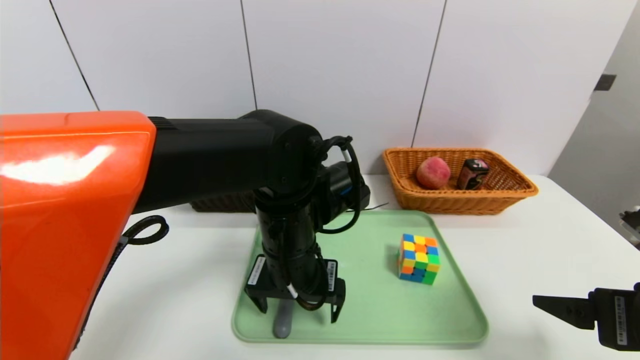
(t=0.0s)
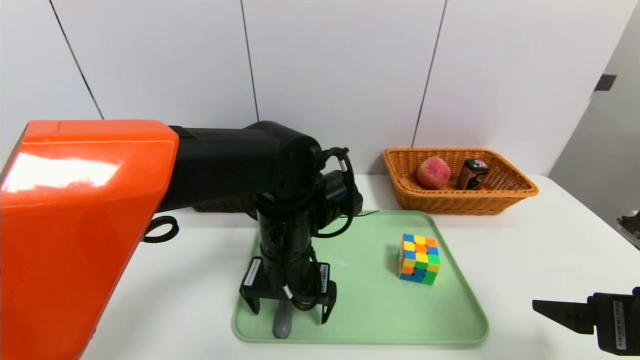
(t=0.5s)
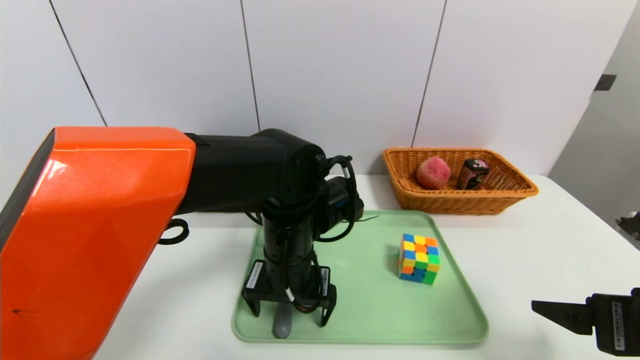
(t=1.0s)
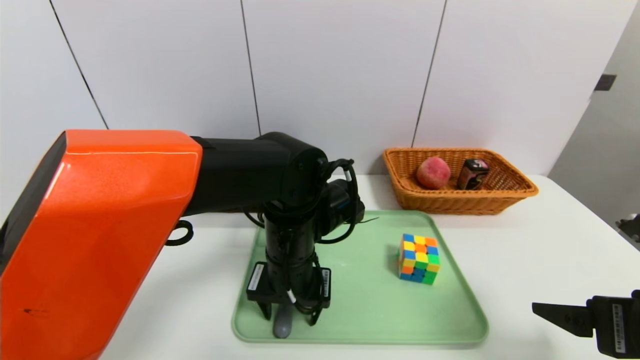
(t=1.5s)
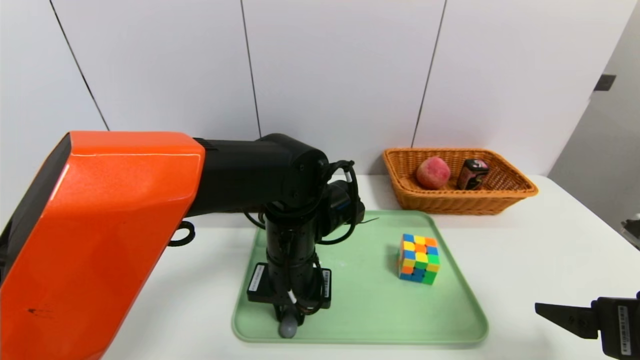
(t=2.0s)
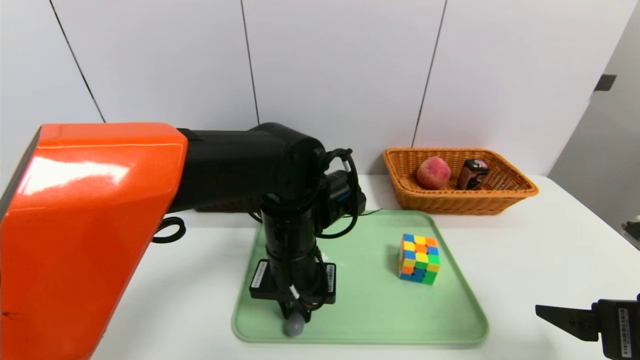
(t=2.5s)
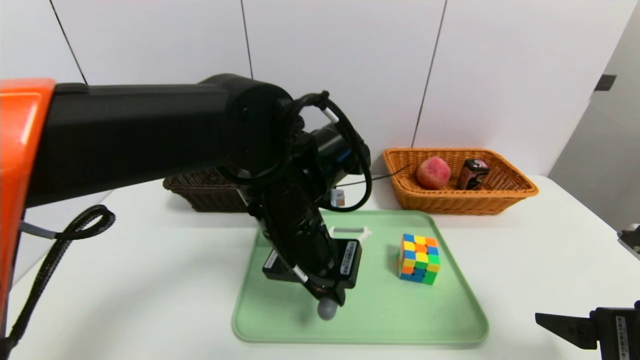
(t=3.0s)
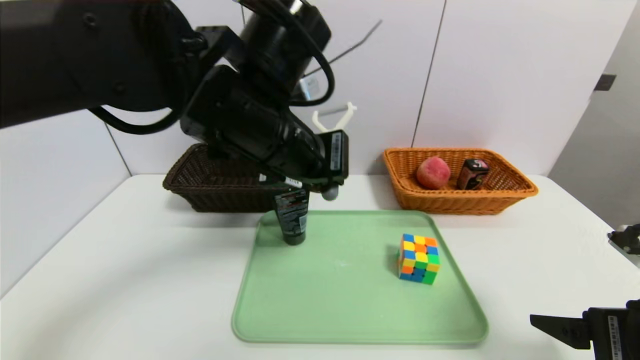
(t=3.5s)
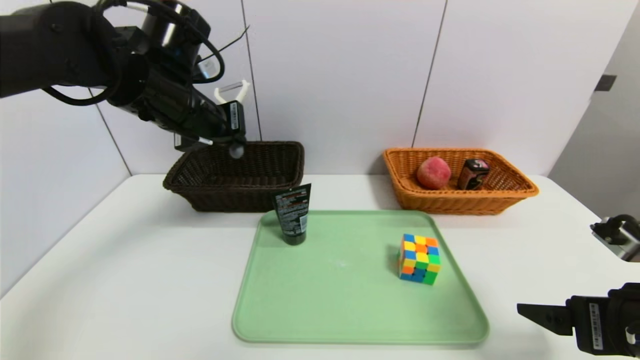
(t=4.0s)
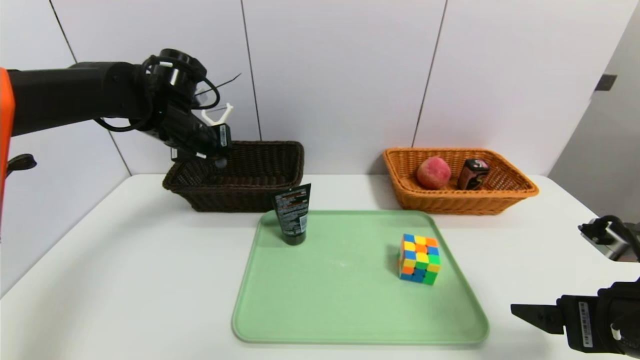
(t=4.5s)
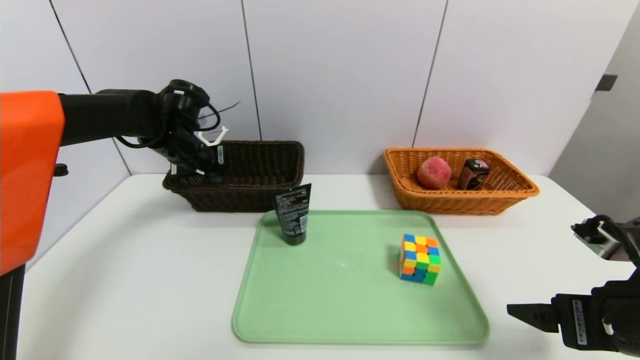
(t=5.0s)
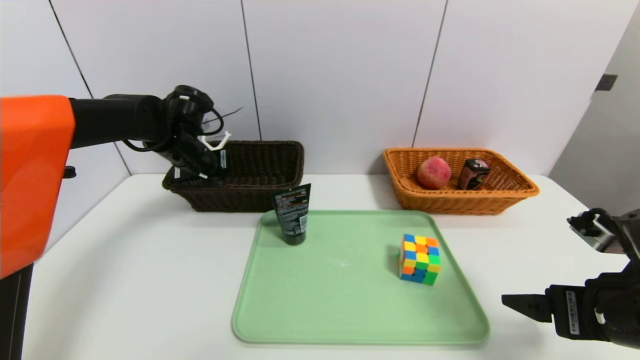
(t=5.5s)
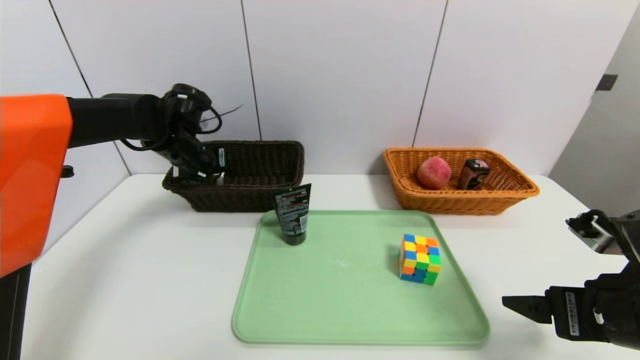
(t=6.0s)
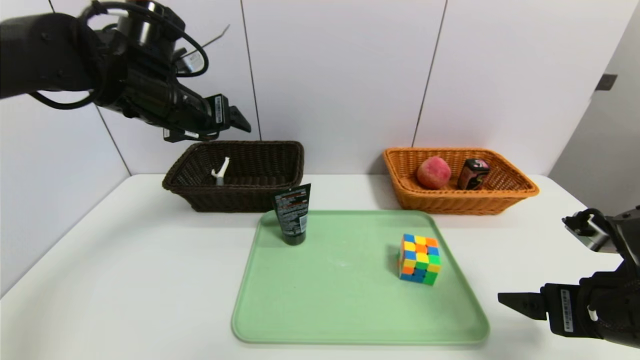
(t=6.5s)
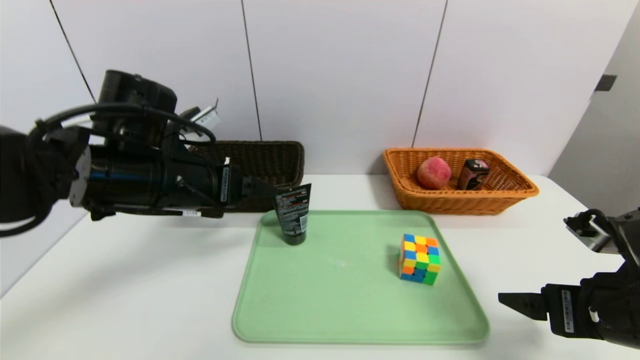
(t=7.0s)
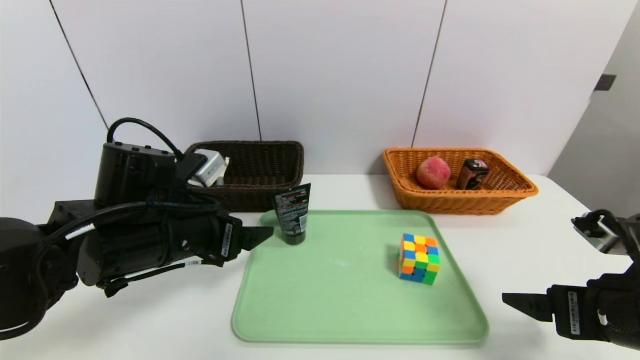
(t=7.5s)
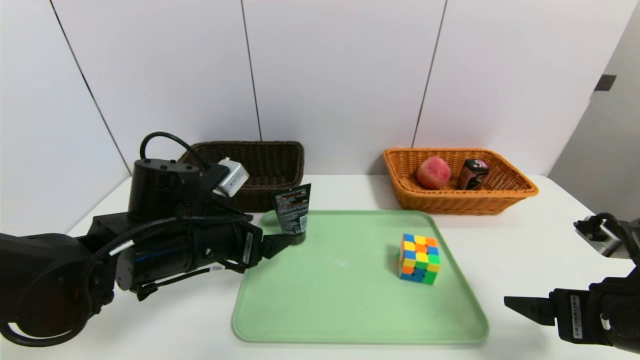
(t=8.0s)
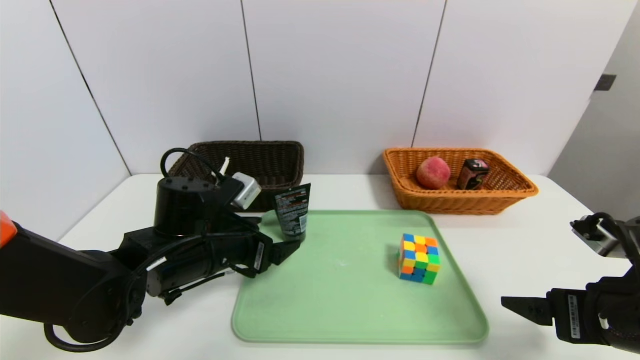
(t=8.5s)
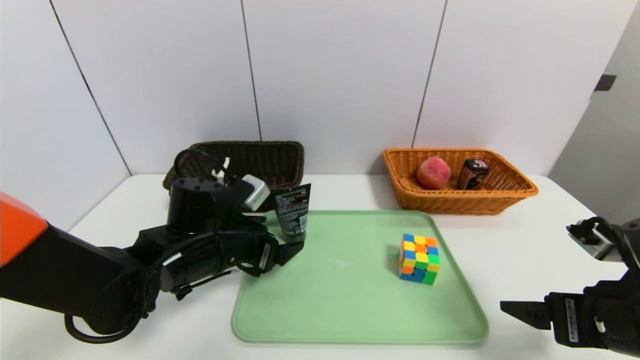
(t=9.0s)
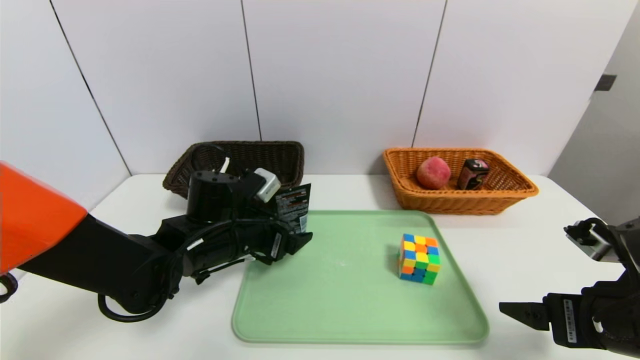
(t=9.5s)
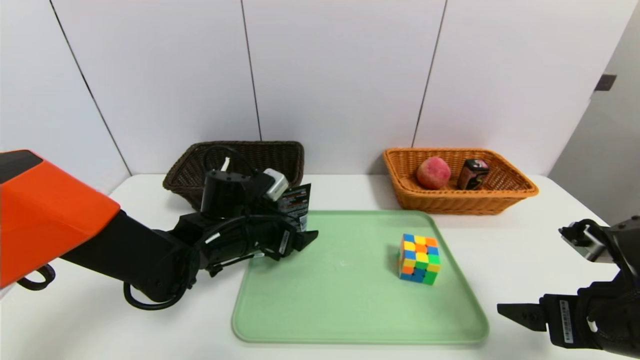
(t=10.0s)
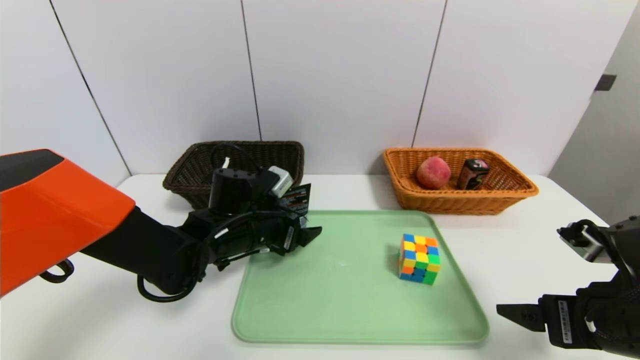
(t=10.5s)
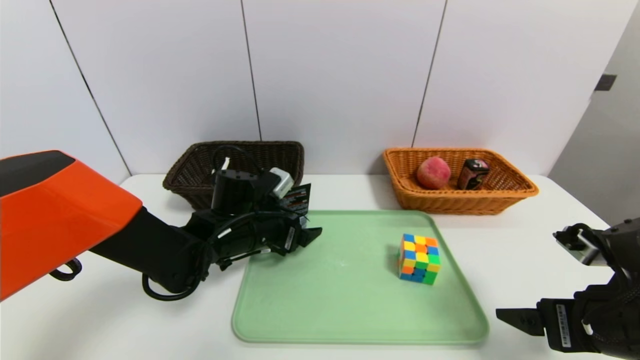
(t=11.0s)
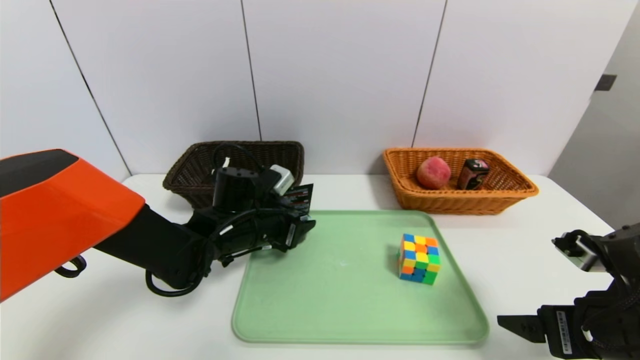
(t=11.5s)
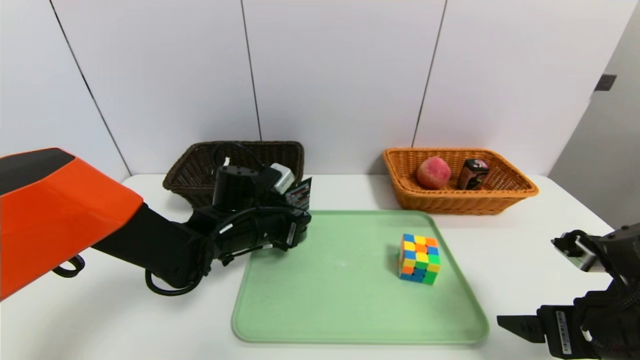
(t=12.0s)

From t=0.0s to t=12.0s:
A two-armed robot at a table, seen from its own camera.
Task of the whole recording: place the food in the right basket with the right gripper, and place the non food items in the left basket with the left gripper.
Step, from t=0.0s to t=6.0s: Grasp the peeler and put it in the left basket.
From t=0.0s to t=2.0s: The left gripper closes up.
From t=2.0s to t=4.0s: The left gripper is displaced upward, to the left and forward by approximately 20 cm.
From t=4.0s to t=6.0s: The left gripper moves downward, forward and to the left, approximately 15 cm, and opens.
From t=6.0s to t=8.0s: The left gripper heads backward and to the right, covering some 20 cm.
From t=8.0s to t=10.0s: The left gripper is displaced forward by approximately 5 cm.
From t=10.0s to t=12.0s: The left gripper closes its fingers.

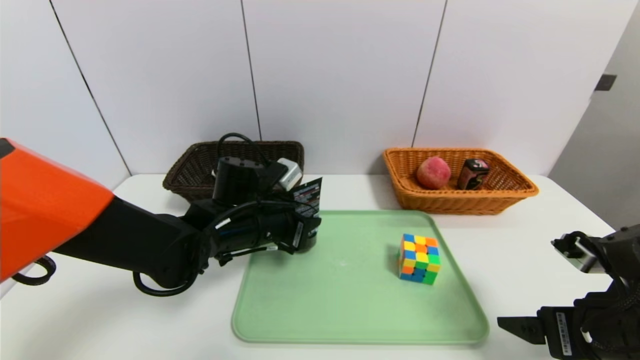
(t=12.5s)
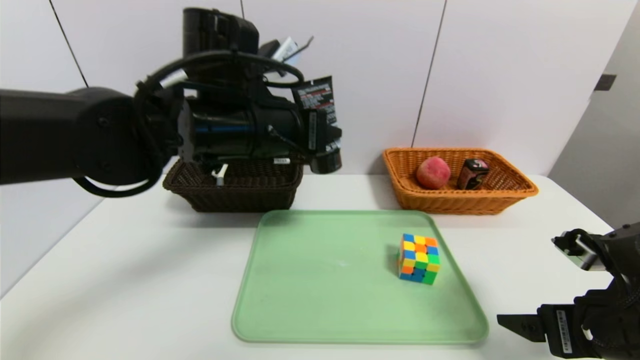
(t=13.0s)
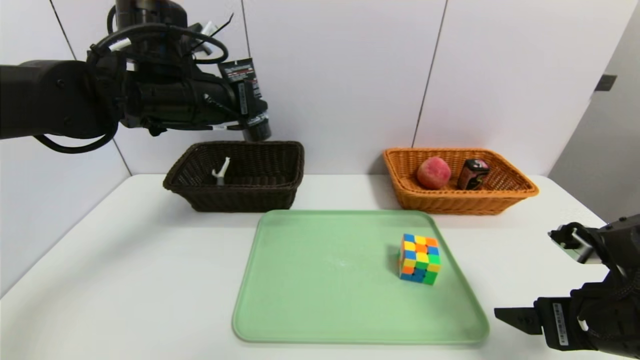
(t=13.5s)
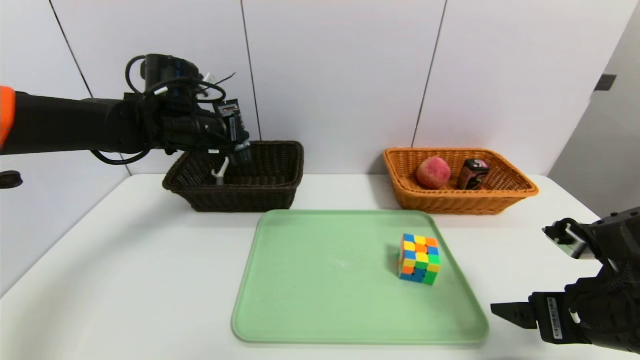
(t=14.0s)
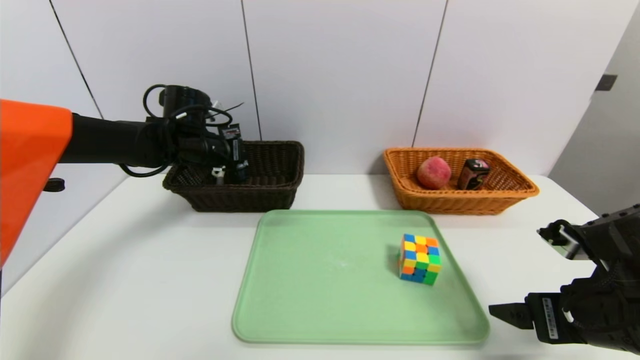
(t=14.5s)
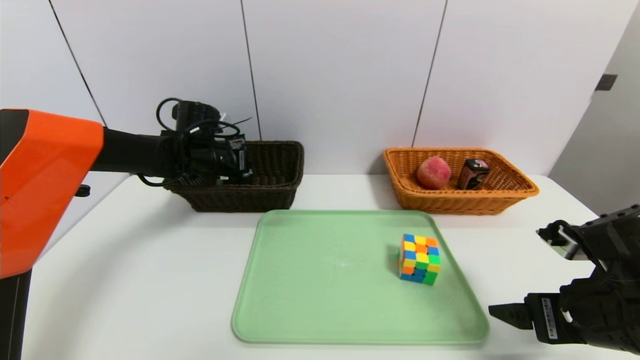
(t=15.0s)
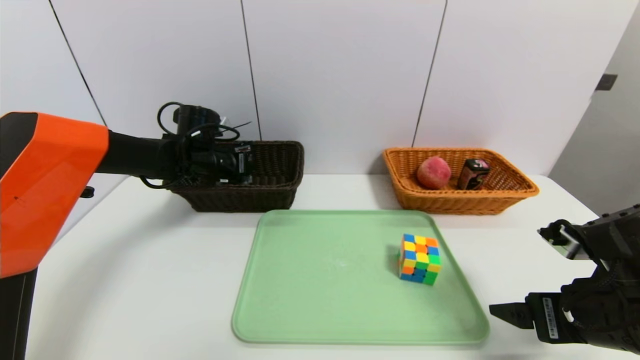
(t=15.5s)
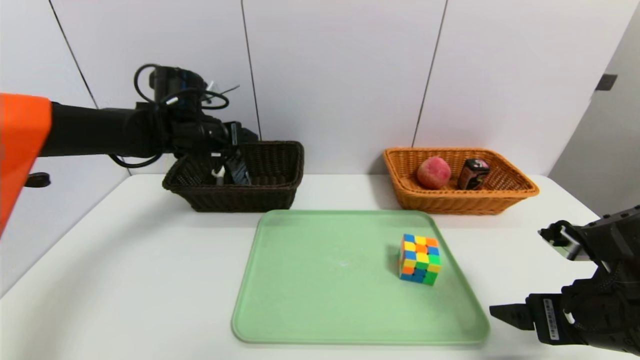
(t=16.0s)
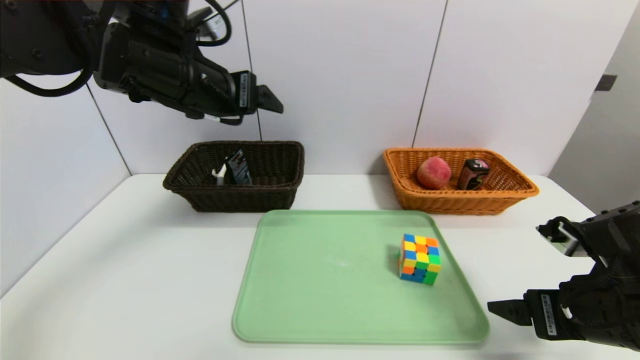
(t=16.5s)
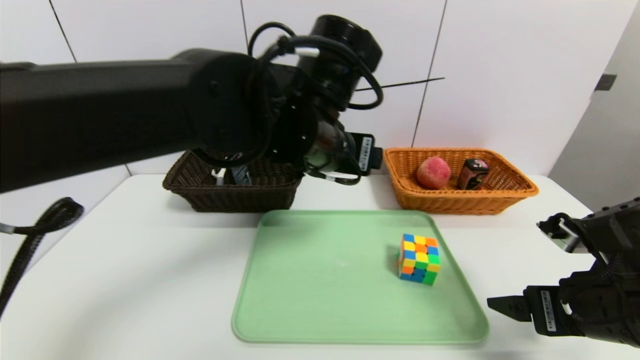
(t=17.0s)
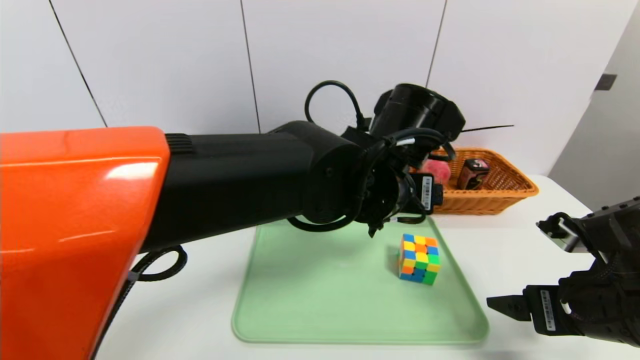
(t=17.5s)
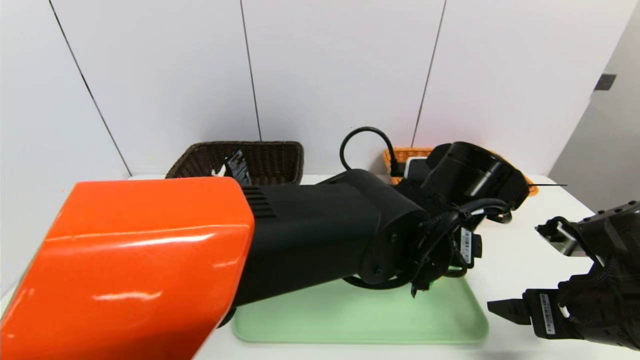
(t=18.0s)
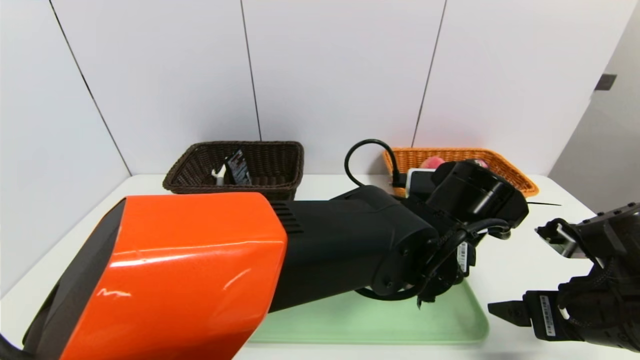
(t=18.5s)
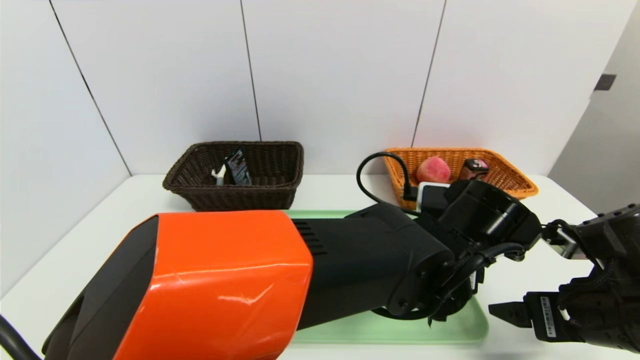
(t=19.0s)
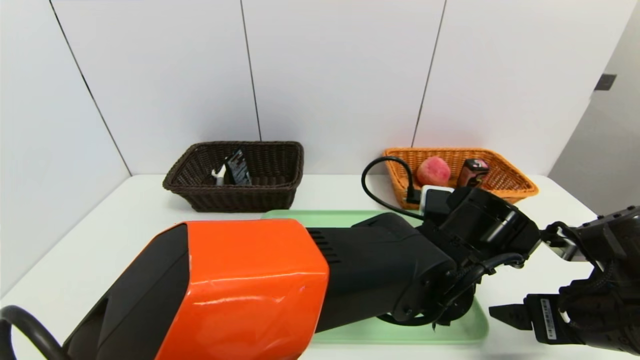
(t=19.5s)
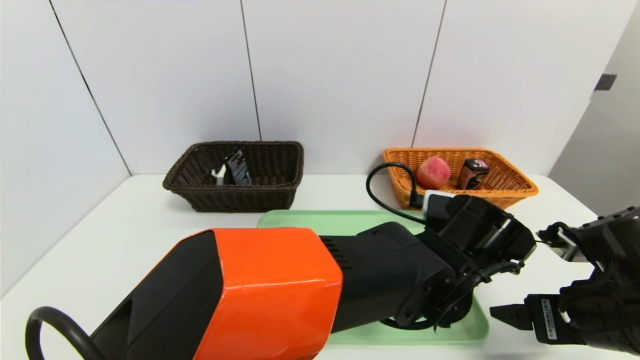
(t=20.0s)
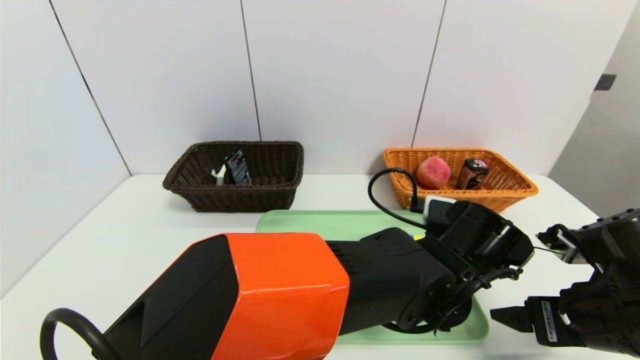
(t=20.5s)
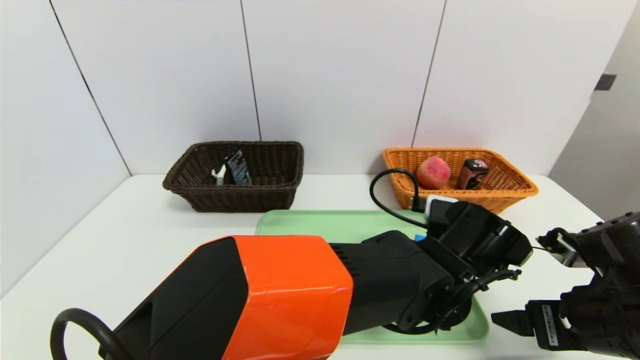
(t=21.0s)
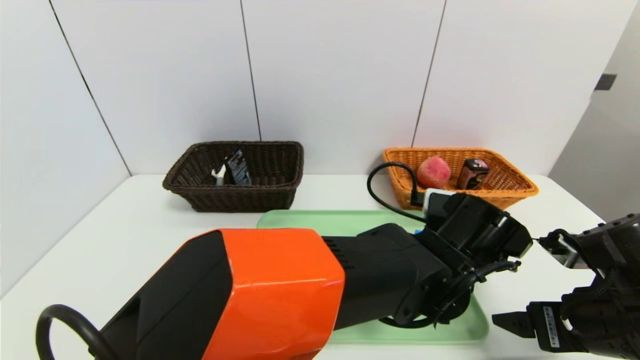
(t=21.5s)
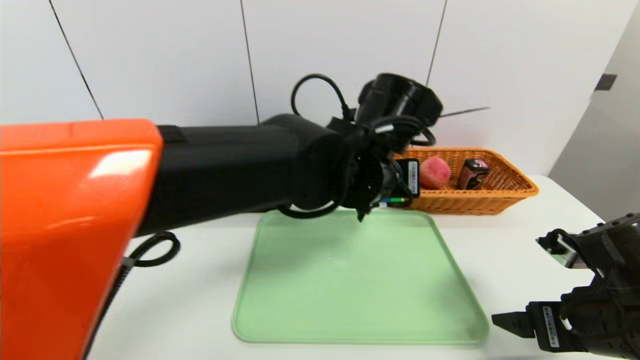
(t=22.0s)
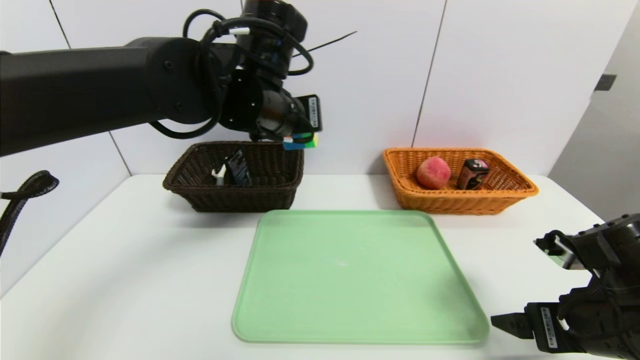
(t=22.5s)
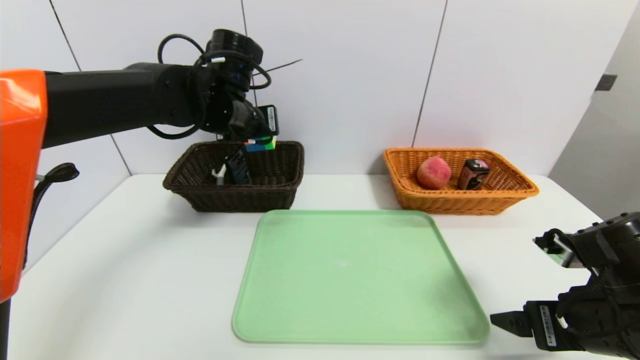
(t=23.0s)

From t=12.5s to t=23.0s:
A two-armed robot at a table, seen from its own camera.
Task of the whole recording: place the food in the right basket with the right gripper, and place the non food items in the left basket with the left gripper.
Step, from t=12.5s to t=16.0s: Grasp the soft cleanser and put it in the left basket.
From t=12.5s to t=14.5s: The left gripper travels forward, to the left and upward by about 20 cm.
From t=14.5s to t=16.5s: The left gripper moves upward, backward and to the right, about 20 cm, and opens up.
From t=16.5s to t=19.0s: The left gripper heads to the right and downward, covering roughly 30 cm.
From t=19.0s to t=21.0s: The left gripper closes.
From t=21.0s to t=23.0s: The left gripper travels to the left, forward and upward by about 35 cm.
